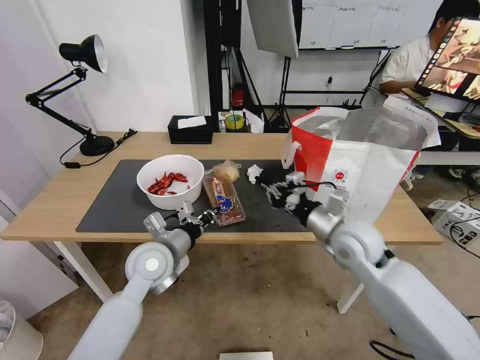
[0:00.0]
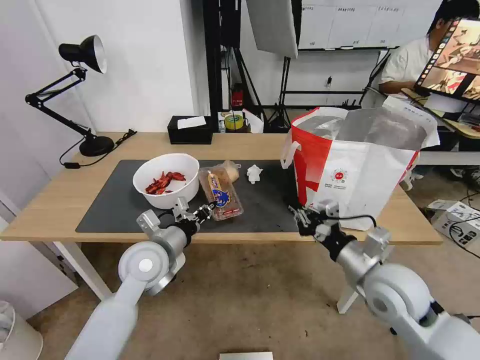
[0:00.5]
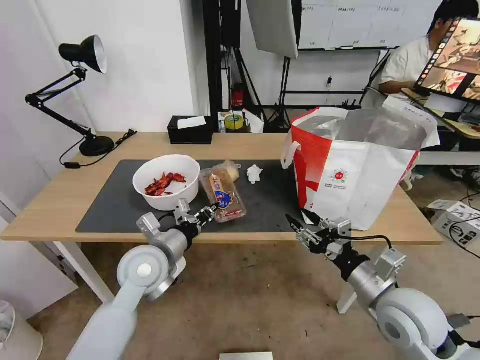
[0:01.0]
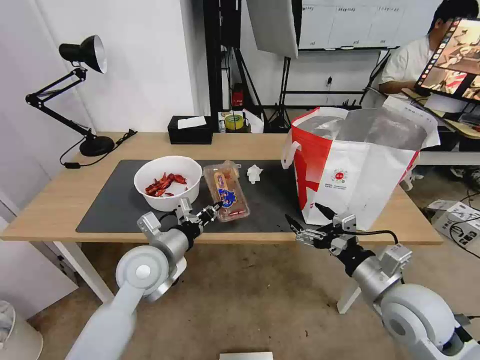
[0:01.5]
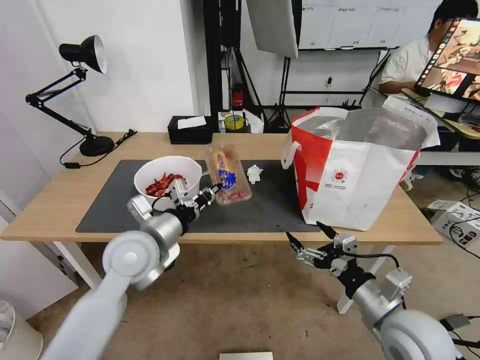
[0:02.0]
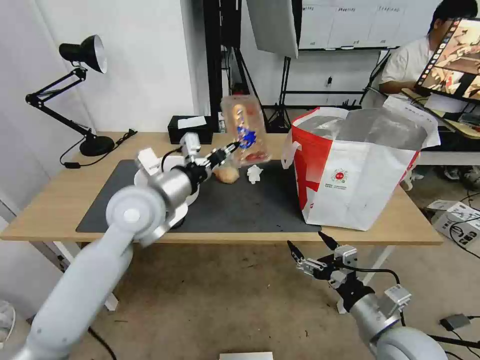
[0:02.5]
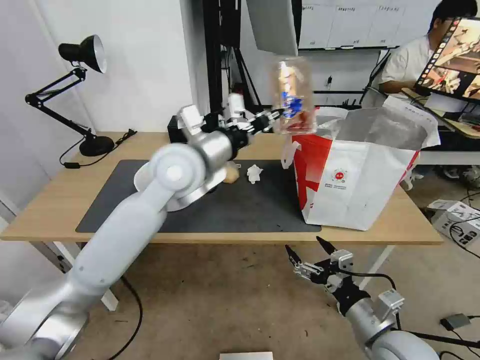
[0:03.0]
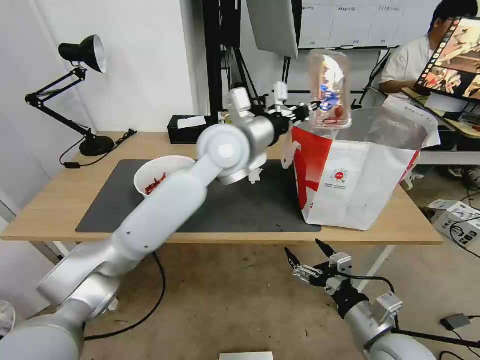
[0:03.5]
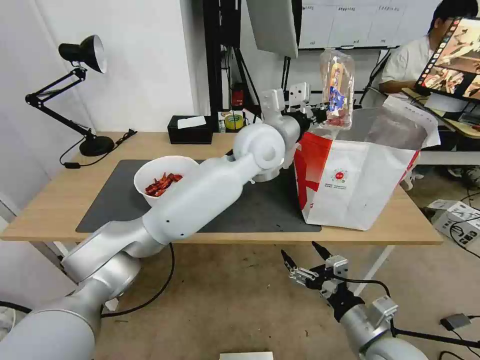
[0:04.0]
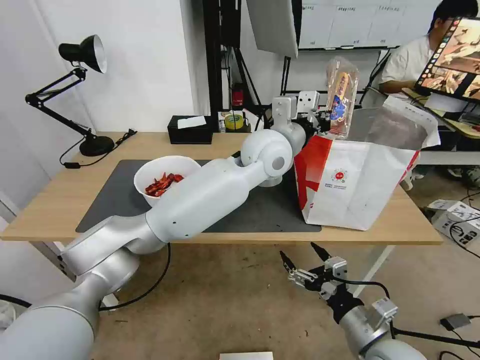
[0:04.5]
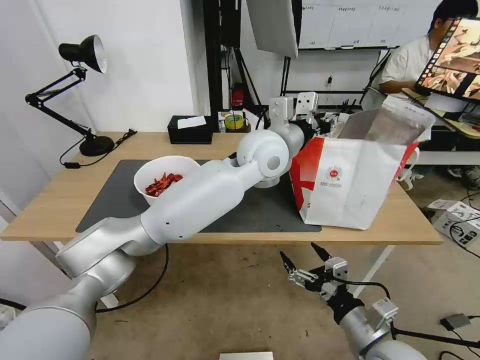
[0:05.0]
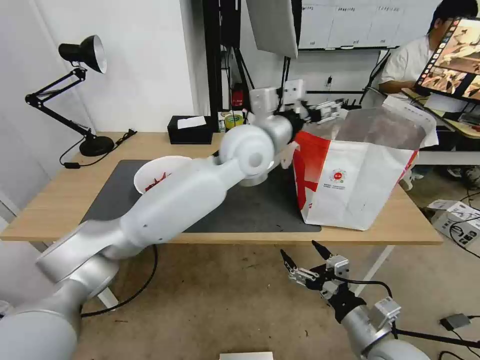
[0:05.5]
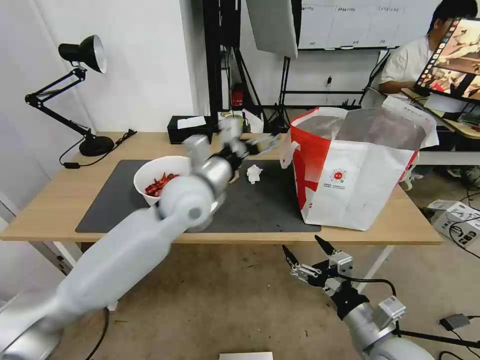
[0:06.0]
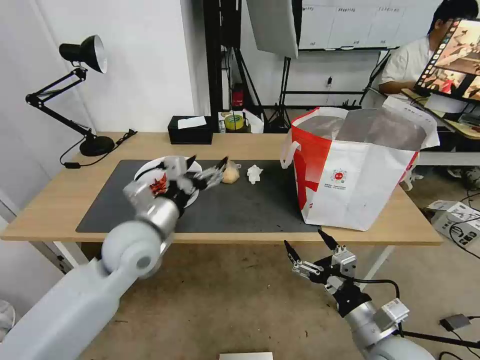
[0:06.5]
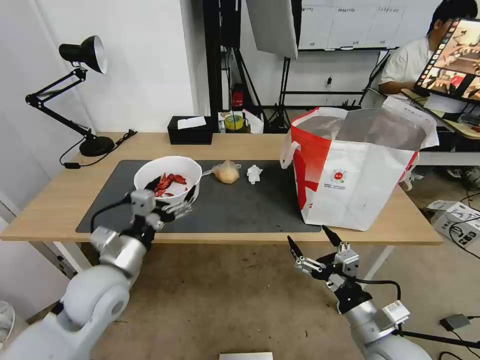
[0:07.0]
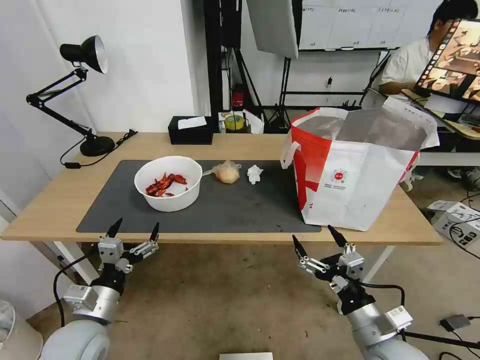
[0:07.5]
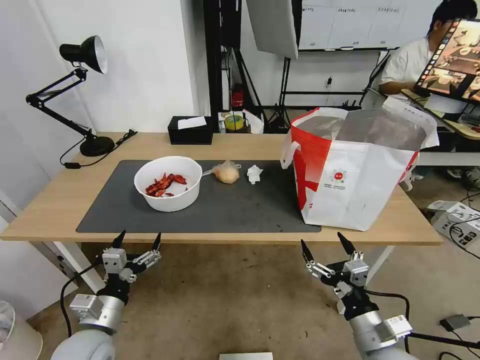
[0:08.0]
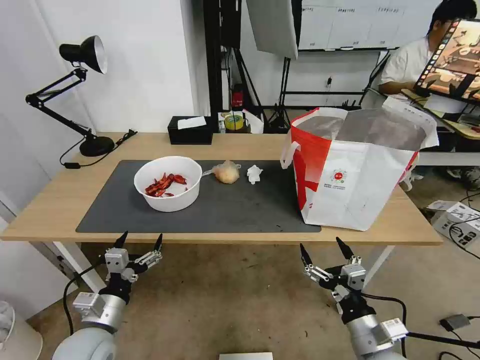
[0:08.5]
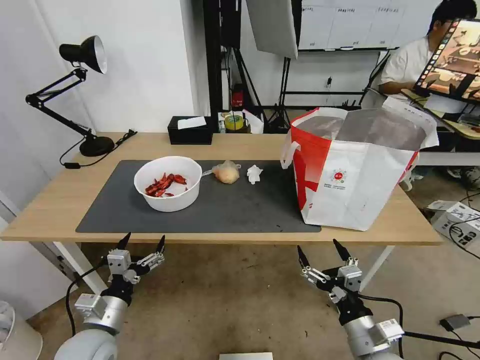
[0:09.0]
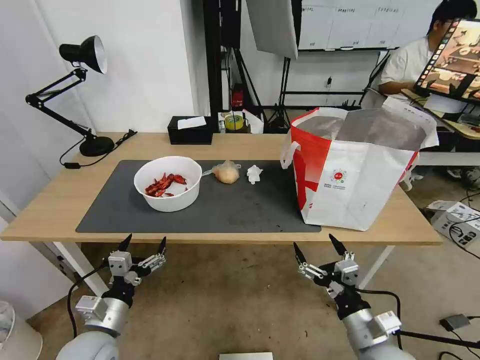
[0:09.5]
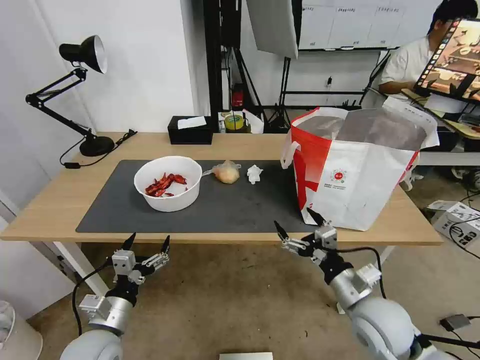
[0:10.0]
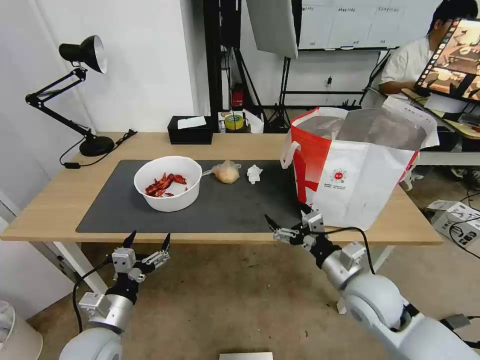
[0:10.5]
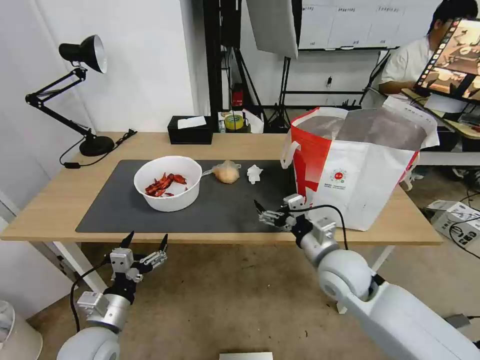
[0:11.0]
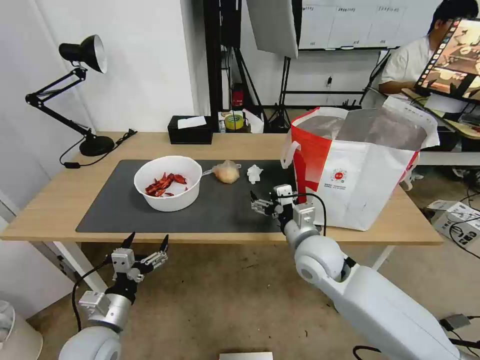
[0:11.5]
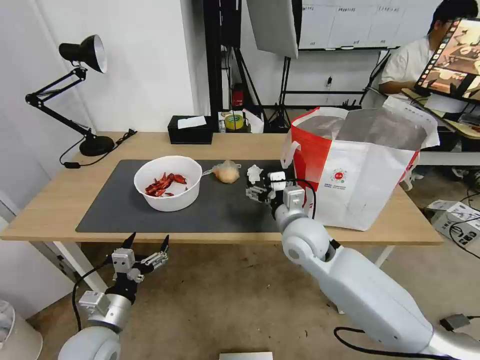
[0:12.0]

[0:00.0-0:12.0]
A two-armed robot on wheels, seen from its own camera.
Task of the whole recording: Pick up the trash from the table and place it into the takeout bag.
0:00.0 to 0:02.0: The right gripper travels backward by some 20 cm, and opens its fingers, while the left gripper shifts about 5 cm upward.
0:02.0 to 0:04.0: The left gripper goes roughly 30 cm to the right, forward and upward. The right gripper ends up roughly 5 cm from where it was.
0:04.0 to 0:06.0: The left gripper is displaced to the left, backward and downward by roughly 15 cm, and opens.
0:06.0 to 0:08.0: The left gripper is displaced downward, backward and to the left by approximately 35 cm.
0:08.0 to 0:10.0: The right gripper heads forward, covering about 10 cm.
0:10.0 to 0:12.0: The right gripper goes approximately 20 cm forward, to the left and upward.

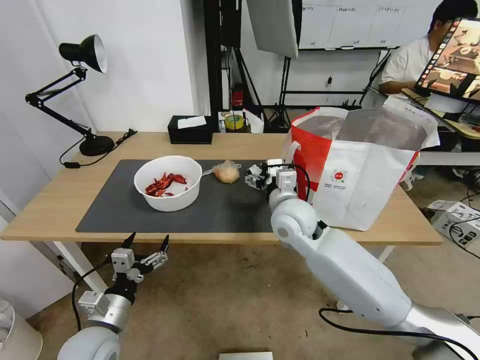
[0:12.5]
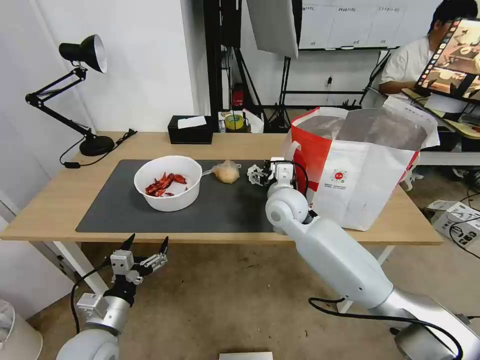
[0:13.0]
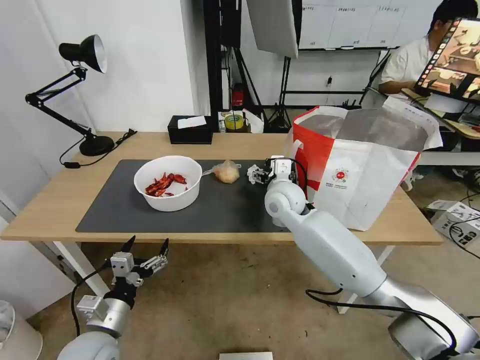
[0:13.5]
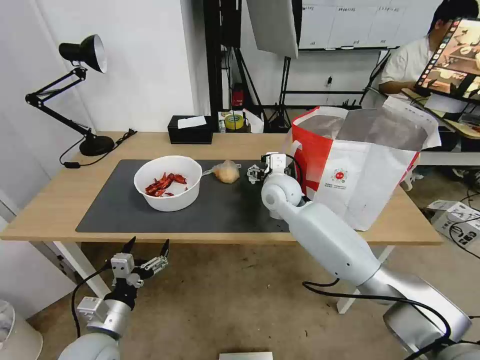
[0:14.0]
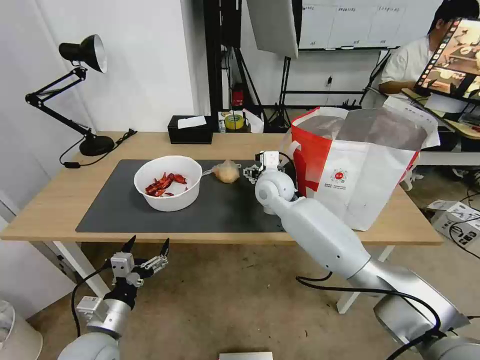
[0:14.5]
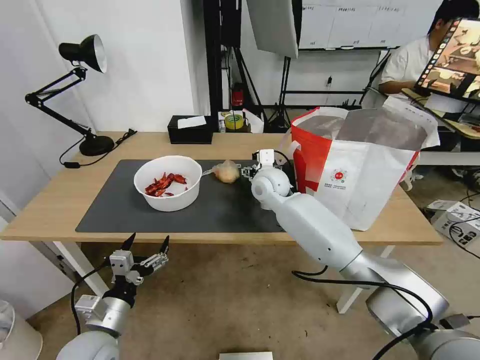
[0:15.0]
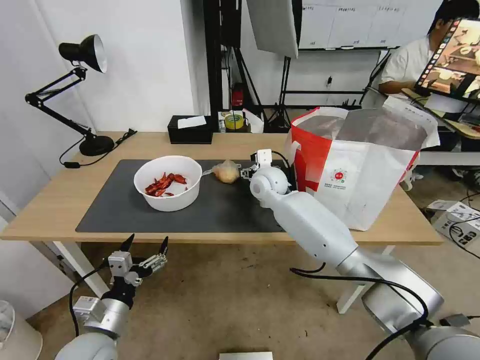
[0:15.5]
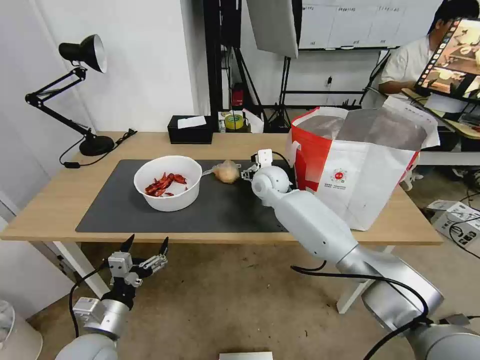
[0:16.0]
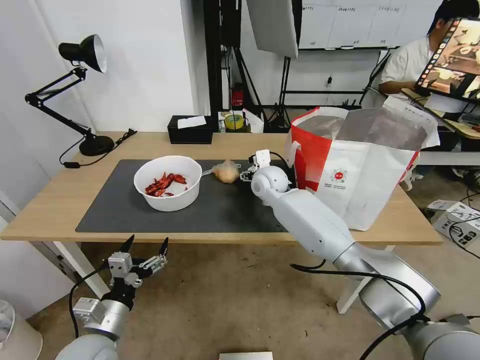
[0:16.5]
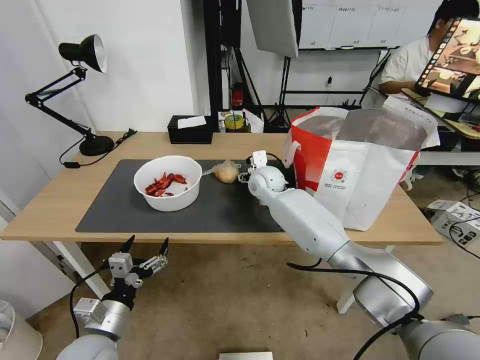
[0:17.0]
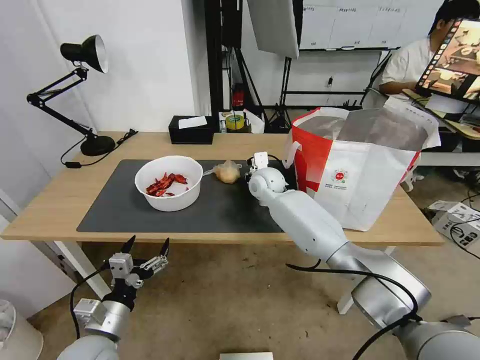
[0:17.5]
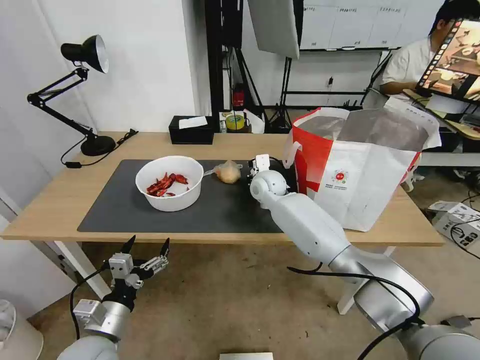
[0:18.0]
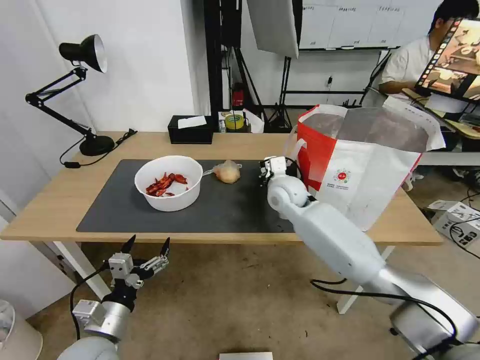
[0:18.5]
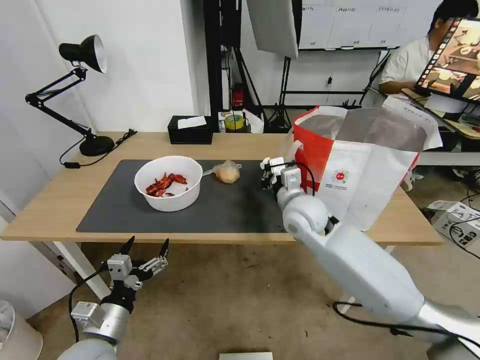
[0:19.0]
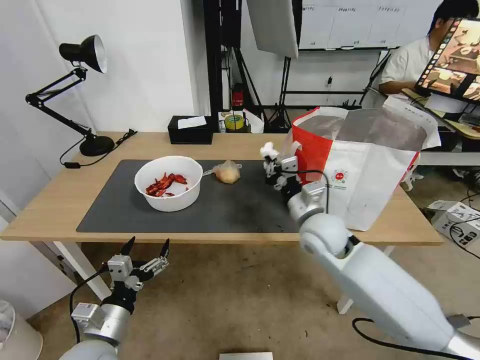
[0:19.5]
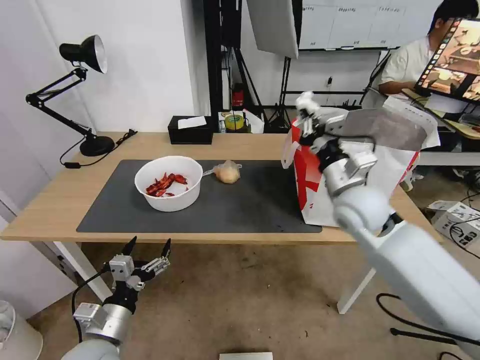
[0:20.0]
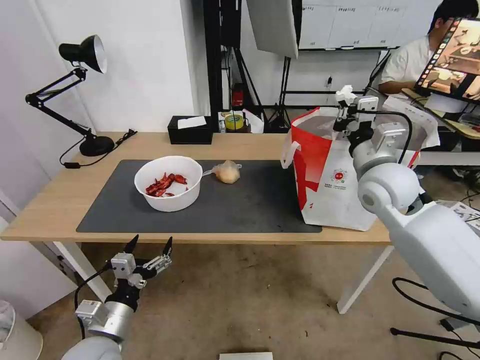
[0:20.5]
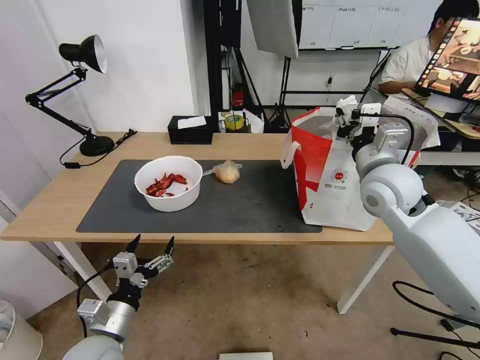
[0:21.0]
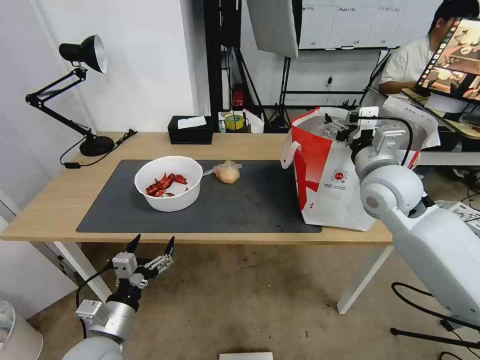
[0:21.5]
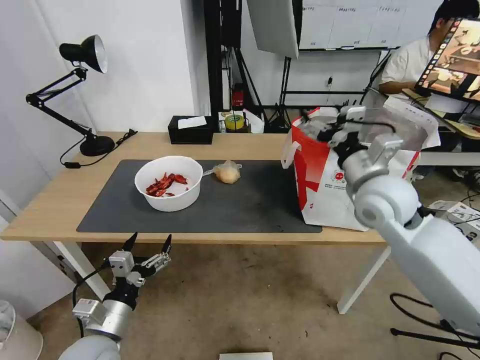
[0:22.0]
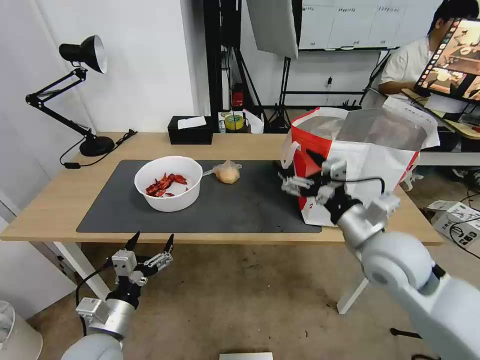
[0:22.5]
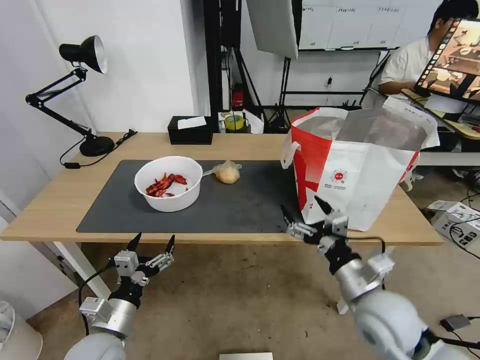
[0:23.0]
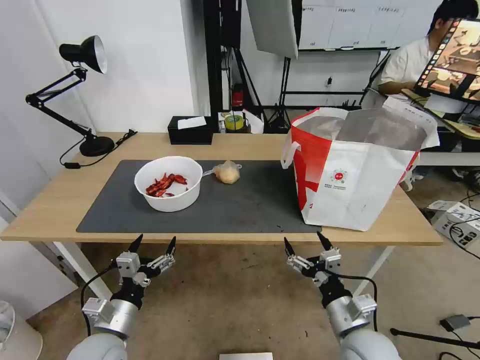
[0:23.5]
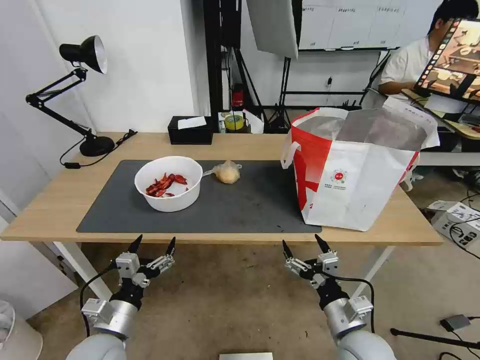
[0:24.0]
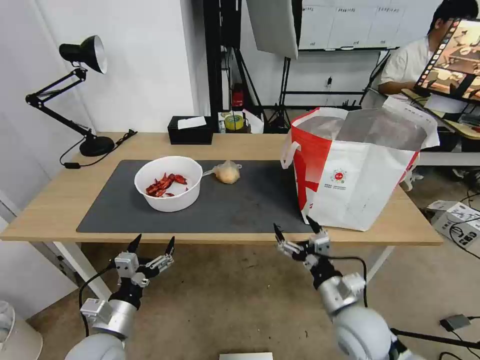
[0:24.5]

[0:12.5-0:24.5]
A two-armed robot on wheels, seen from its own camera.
Task of the whole recording: Pick up the trash from the table and place it into the takeout bag.
0:12.5 to 0:14.5: The right gripper travels forward by about 10 cm.
0:14.5 to 0:16.5: The grippers stay close to where they were, moving slightly.
0:16.5 to 0:18.5: The right gripper moves backward, some 5 cm, and closes.
0:18.5 to 0:20.5: The right gripper travels to the right, upward and backward by some 20 cm.
0:20.5 to 0:22.5: The right gripper moves backward and downward, about 15 cm, and opens its fingers.
0:22.5 to 0:24.5: The right gripper heads downward and backward, covering some 15 cm.

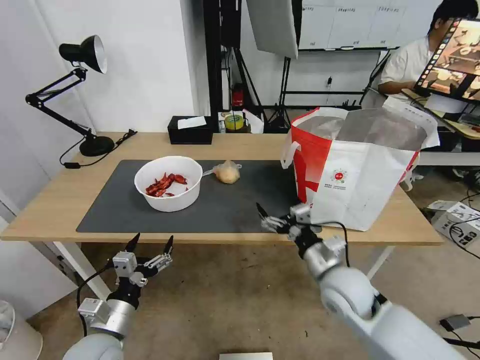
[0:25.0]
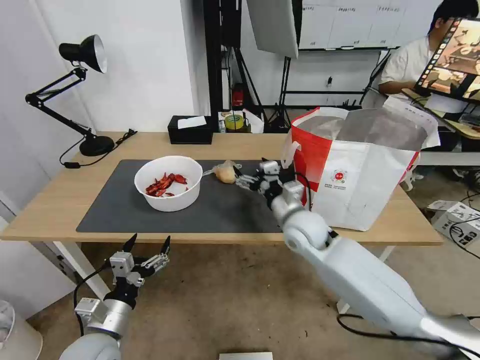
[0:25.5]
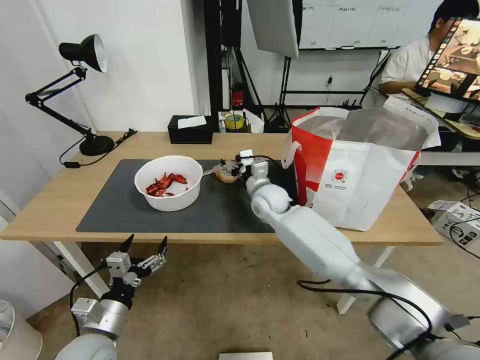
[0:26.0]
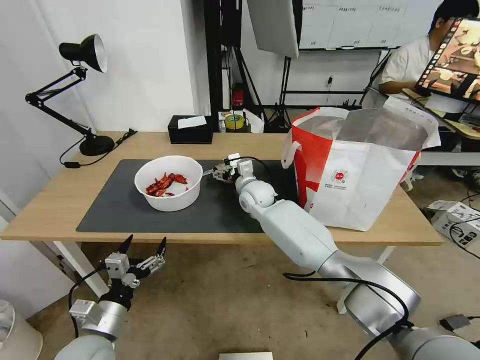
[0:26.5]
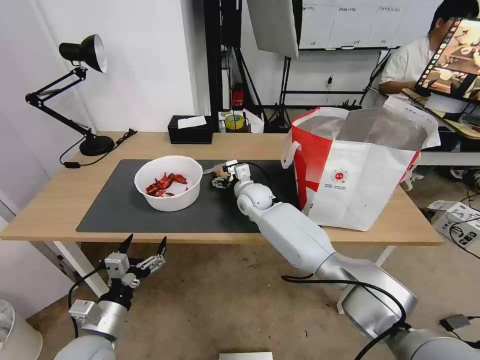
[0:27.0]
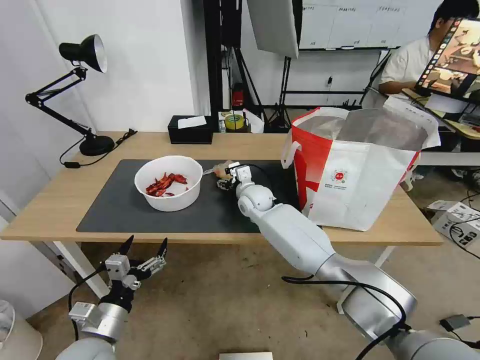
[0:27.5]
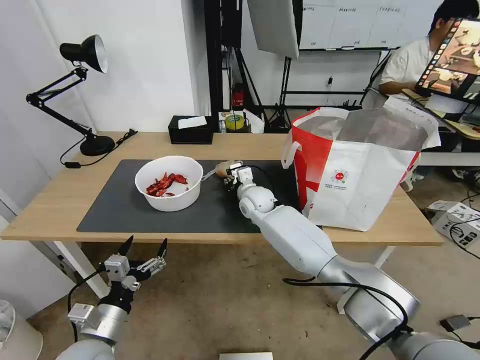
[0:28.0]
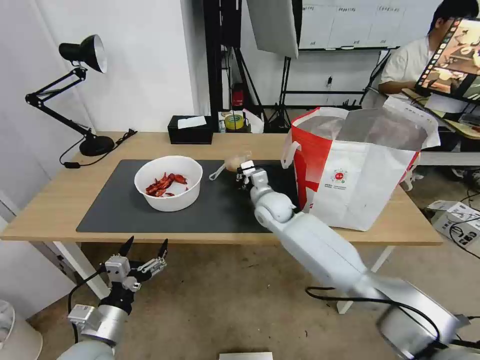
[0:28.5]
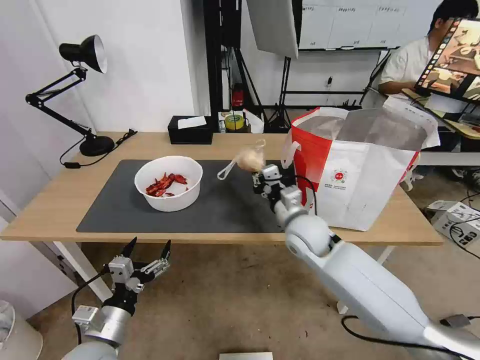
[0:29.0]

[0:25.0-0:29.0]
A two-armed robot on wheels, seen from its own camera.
Task of the whole recording: Pick up the trash from the table and place it into the takeout bag.
0:25.0 to 0:27.0: The right gripper moves forward and to the left, about 30 cm.
0:27.0 to 0:29.0: The right gripper travels backward and to the right by roughly 20 cm, and closes its fingers.
